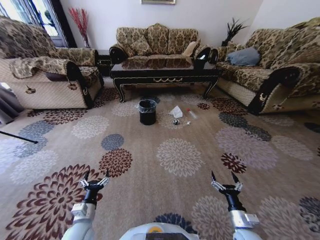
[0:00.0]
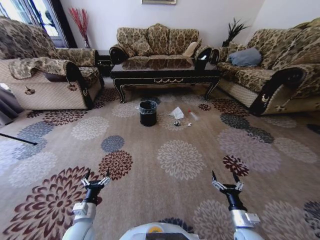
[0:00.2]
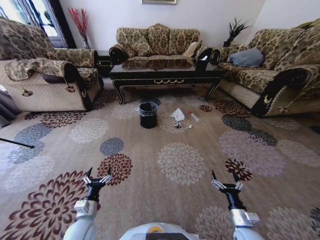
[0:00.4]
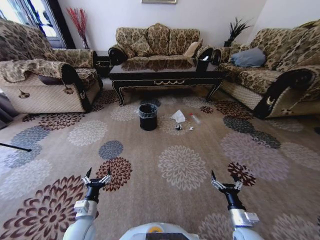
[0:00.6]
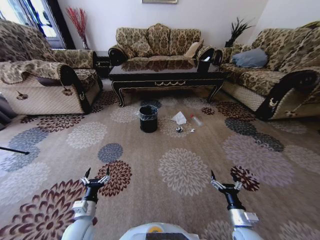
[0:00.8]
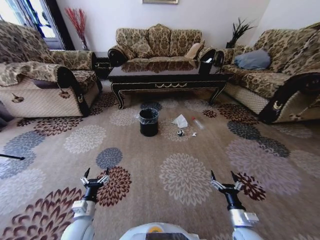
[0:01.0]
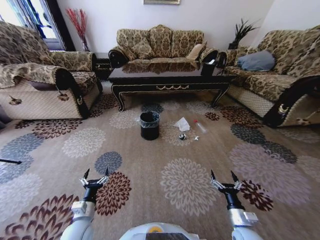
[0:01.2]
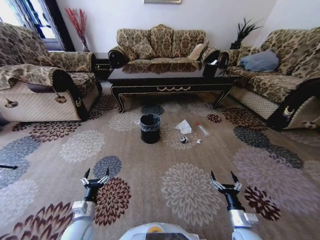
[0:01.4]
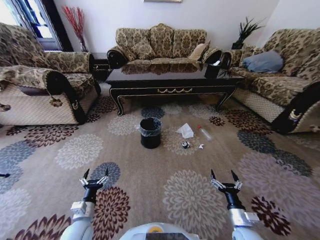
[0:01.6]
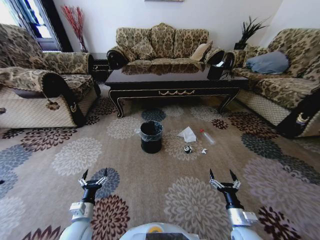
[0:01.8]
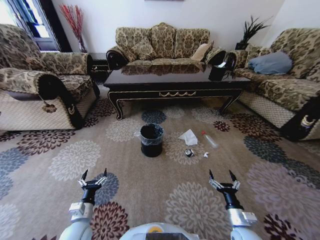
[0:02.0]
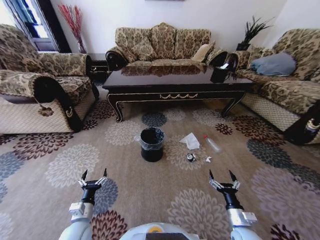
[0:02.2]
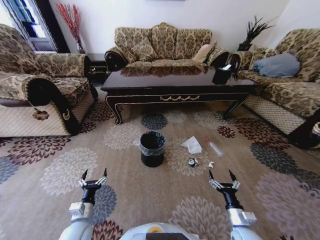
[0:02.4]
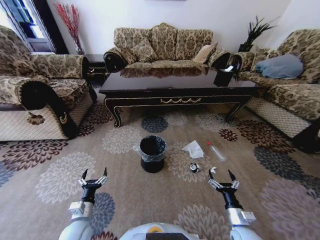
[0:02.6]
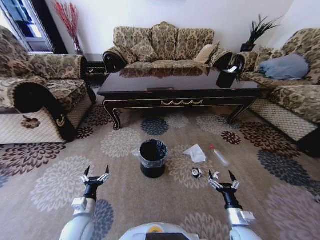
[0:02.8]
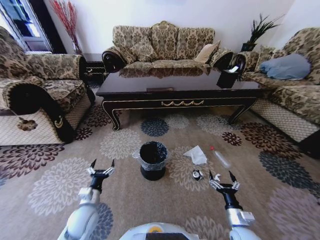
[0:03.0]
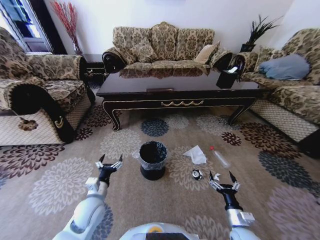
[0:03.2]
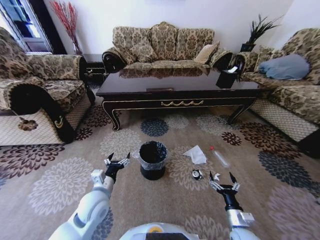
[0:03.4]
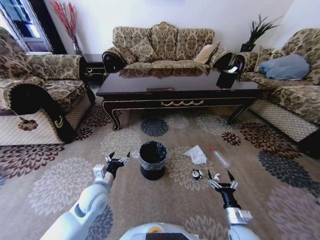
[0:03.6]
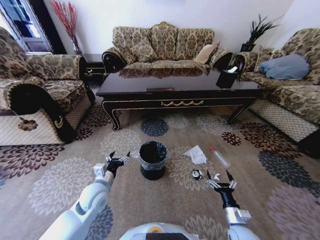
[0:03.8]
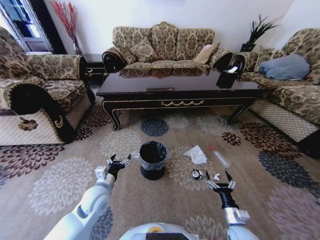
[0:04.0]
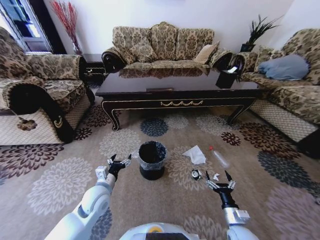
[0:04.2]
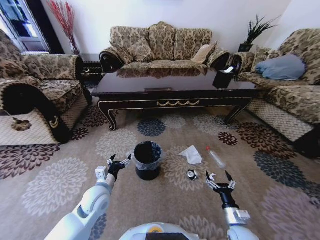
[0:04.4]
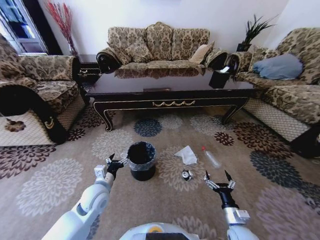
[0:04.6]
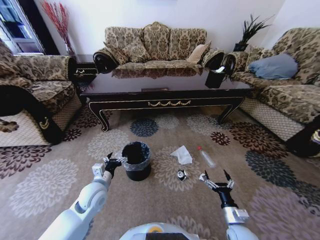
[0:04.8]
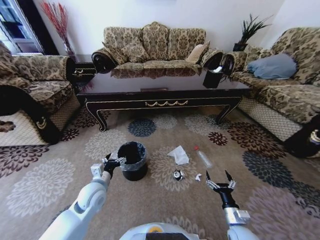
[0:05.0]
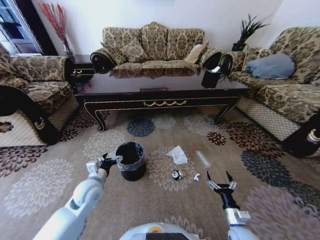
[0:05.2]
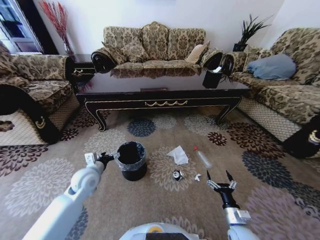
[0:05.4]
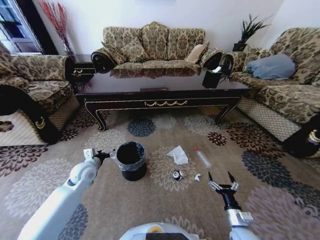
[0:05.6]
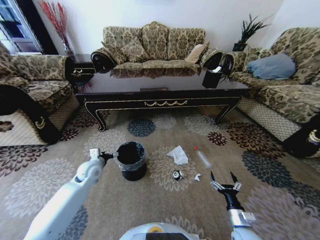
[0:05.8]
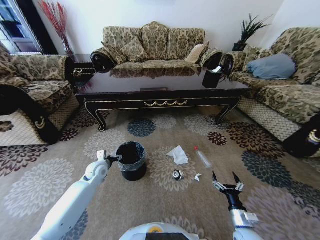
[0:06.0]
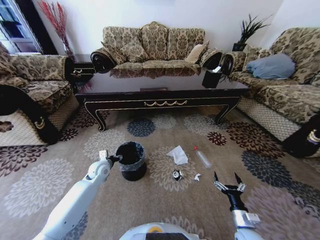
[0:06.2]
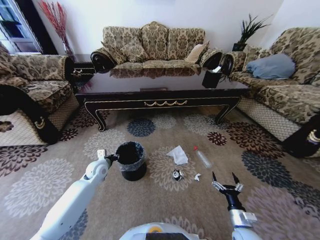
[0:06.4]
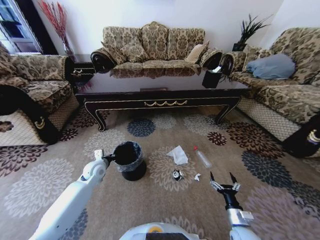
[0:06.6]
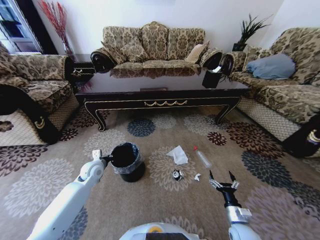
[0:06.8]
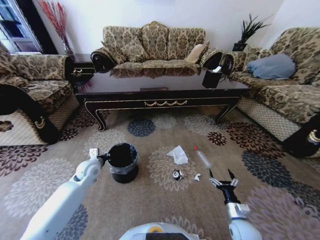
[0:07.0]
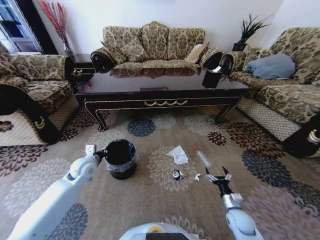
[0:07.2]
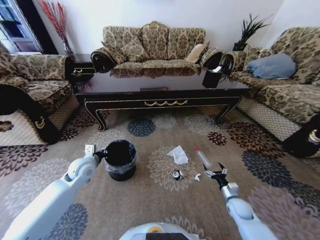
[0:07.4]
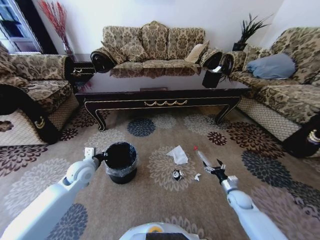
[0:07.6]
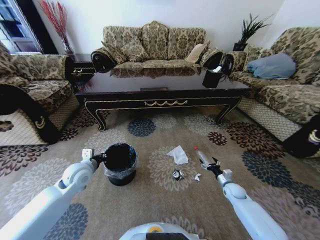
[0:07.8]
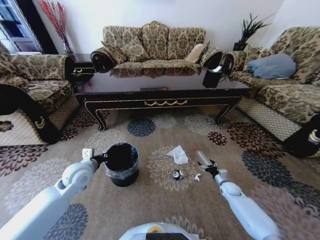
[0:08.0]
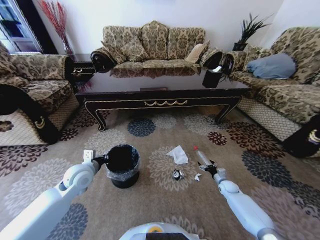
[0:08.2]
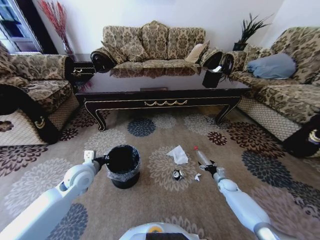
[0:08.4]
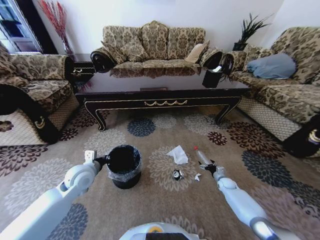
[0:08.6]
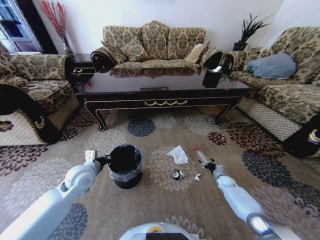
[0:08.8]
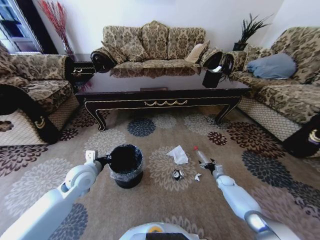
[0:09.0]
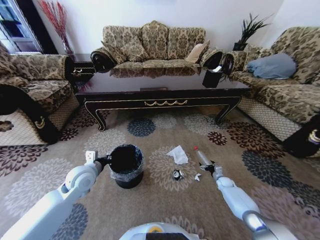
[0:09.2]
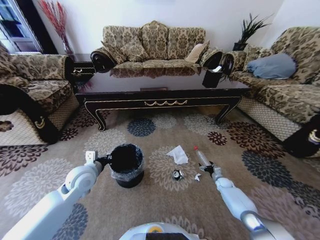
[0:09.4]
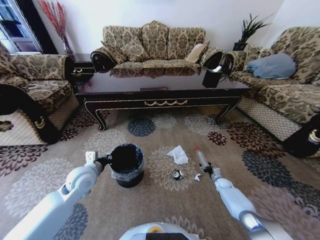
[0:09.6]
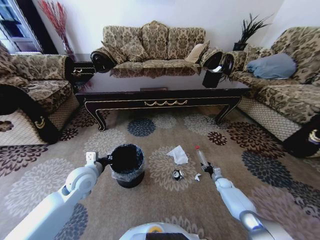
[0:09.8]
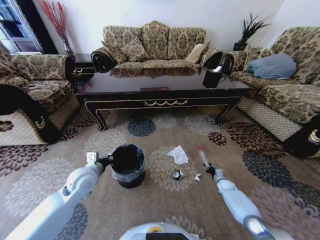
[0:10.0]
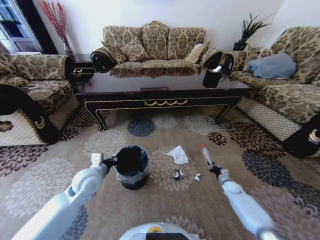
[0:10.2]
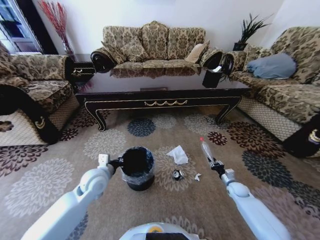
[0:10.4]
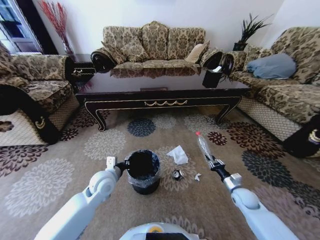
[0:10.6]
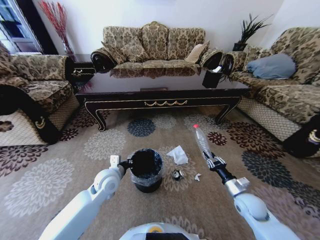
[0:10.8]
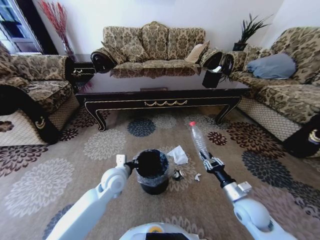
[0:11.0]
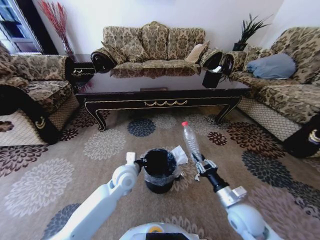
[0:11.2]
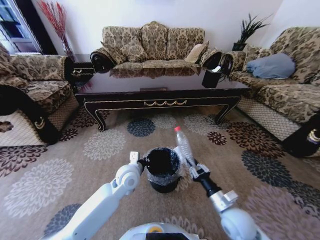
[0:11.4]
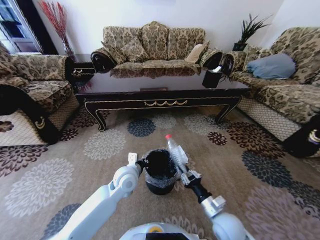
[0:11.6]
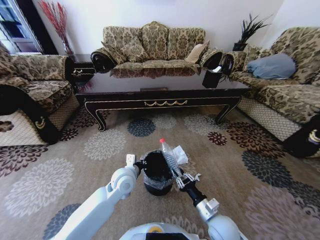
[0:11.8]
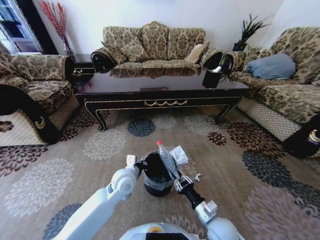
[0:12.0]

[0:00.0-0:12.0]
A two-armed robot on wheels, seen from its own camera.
Task of the whole recording: Move to the front of the table and pick up the trash from the floor, then place it into the trash bin.
0:03.0 to 0:04.4: The left gripper moves upward, forward and to the right, approximately 10 cm.
0:04.4 to 0:06.0: The left gripper shifts some 15 cm forward and to the left.
0:06.0 to 0:07.6: The right gripper goes some 20 cm forward and to the right, while the left gripper goes roughly 10 cm upward, and closes.
0:07.6 to 0:09.0: The right gripper moves forward and downward, some 15 cm.
0:09.0 to 0:10.4: The left gripper is displaced to the right by roughly 5 cm. The right gripper goes approximately 10 cm backward and upward, and closes up.
0:10.4 to 0:12.0: The right gripper is displaced to the left, backward and upward by about 30 cm. The left gripper moves to the right, roughly 10 cm.

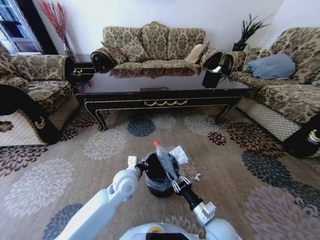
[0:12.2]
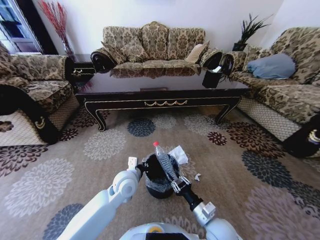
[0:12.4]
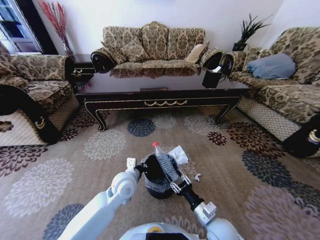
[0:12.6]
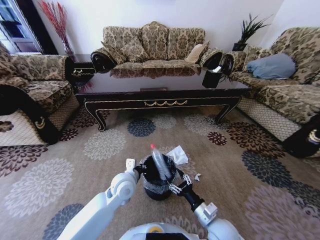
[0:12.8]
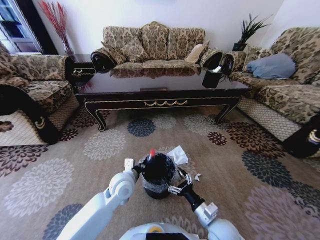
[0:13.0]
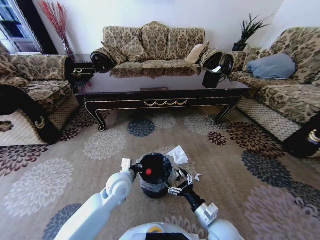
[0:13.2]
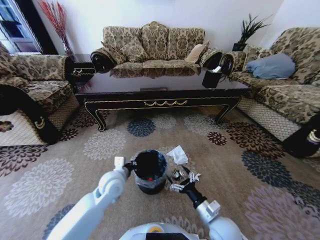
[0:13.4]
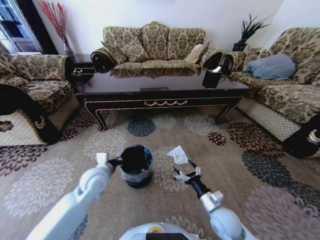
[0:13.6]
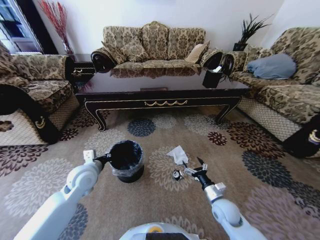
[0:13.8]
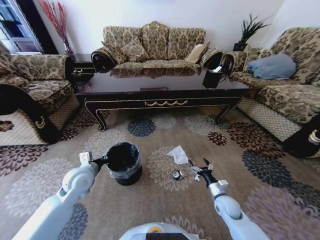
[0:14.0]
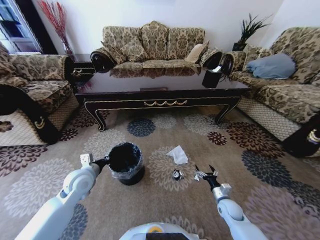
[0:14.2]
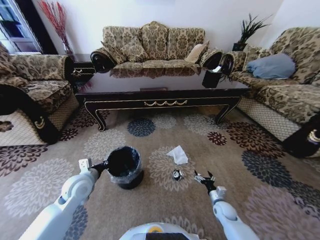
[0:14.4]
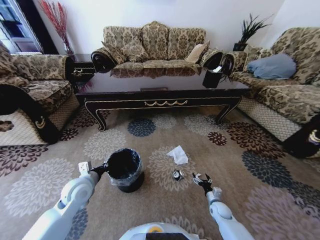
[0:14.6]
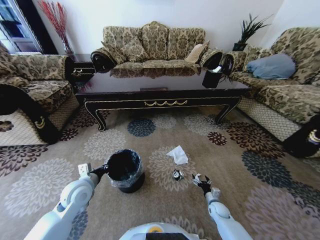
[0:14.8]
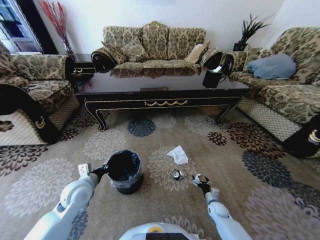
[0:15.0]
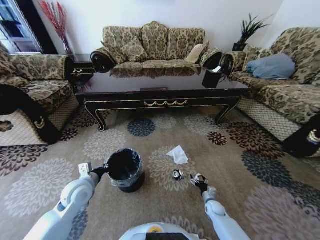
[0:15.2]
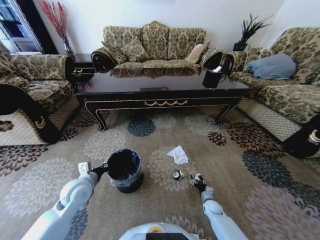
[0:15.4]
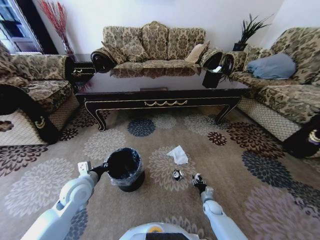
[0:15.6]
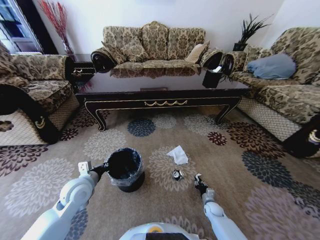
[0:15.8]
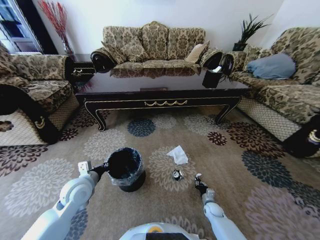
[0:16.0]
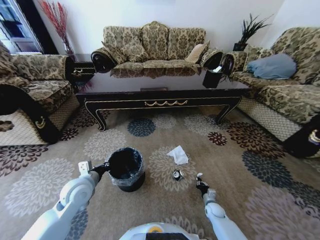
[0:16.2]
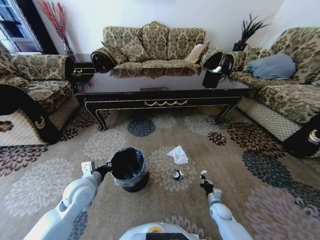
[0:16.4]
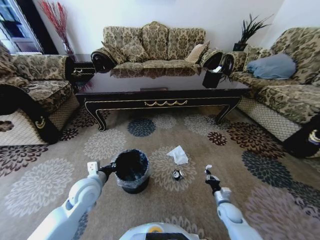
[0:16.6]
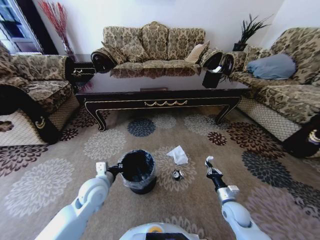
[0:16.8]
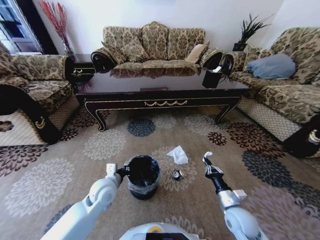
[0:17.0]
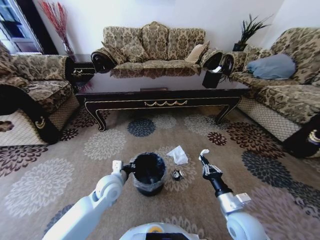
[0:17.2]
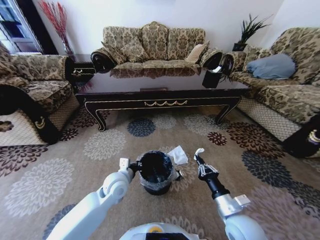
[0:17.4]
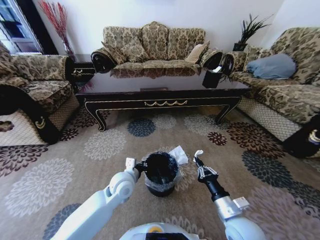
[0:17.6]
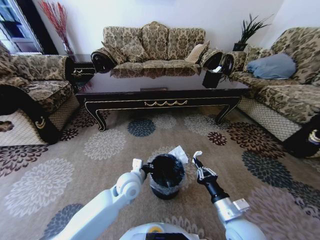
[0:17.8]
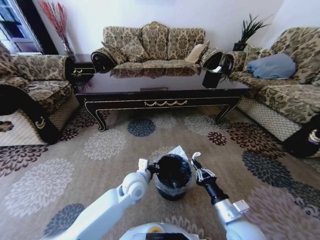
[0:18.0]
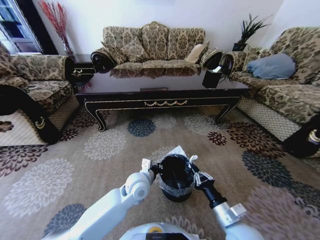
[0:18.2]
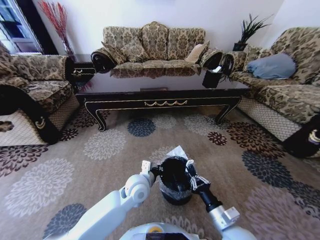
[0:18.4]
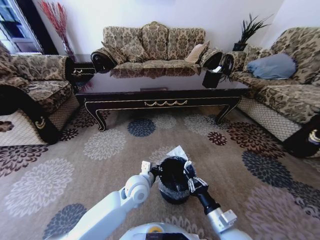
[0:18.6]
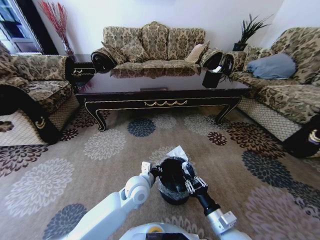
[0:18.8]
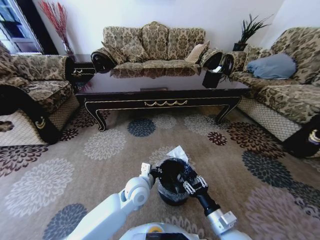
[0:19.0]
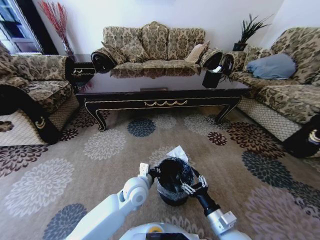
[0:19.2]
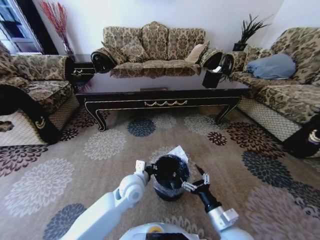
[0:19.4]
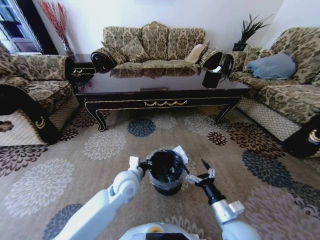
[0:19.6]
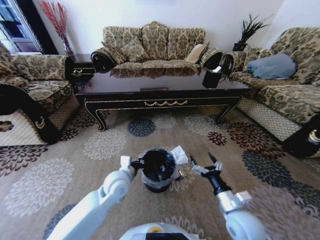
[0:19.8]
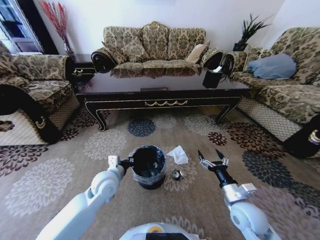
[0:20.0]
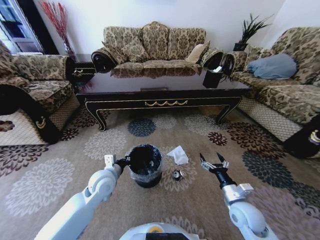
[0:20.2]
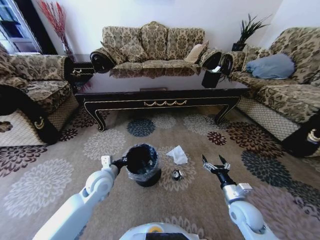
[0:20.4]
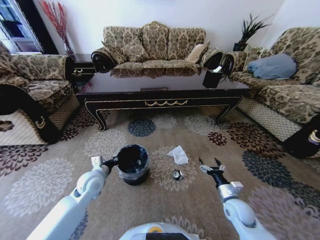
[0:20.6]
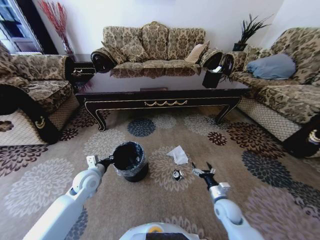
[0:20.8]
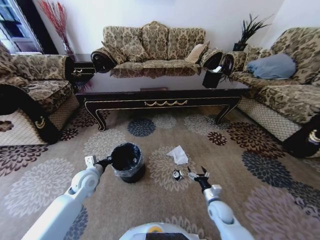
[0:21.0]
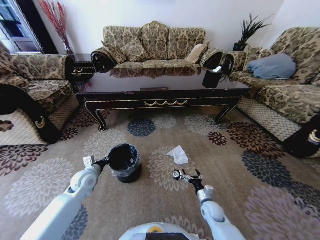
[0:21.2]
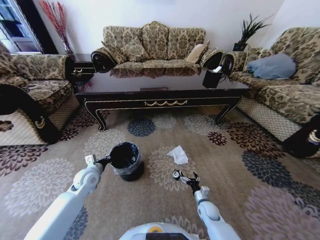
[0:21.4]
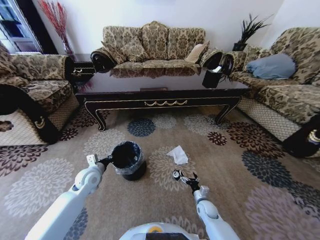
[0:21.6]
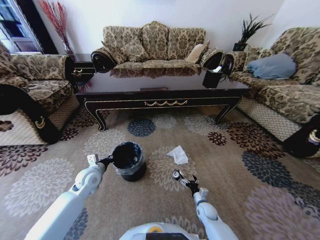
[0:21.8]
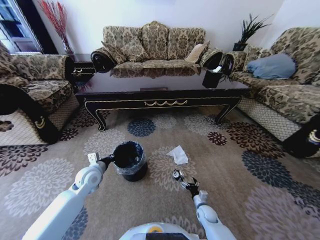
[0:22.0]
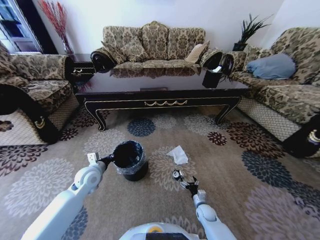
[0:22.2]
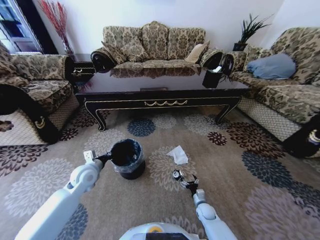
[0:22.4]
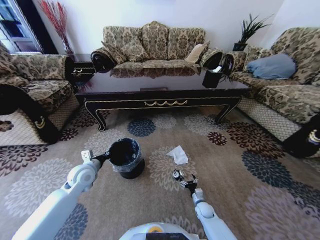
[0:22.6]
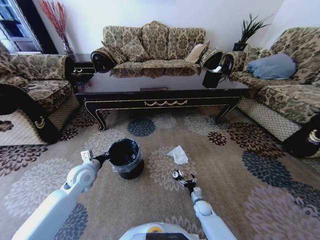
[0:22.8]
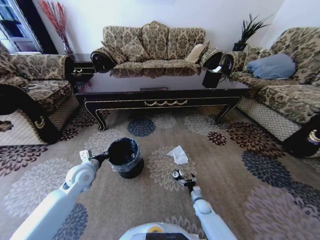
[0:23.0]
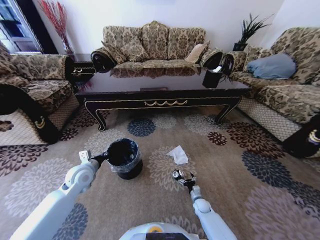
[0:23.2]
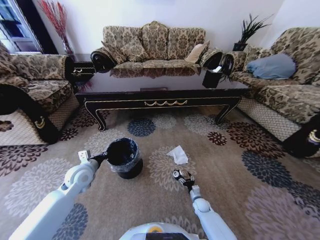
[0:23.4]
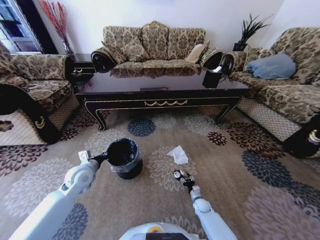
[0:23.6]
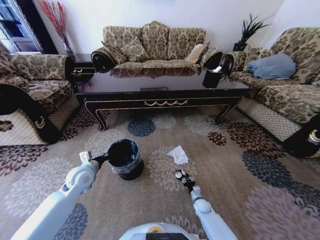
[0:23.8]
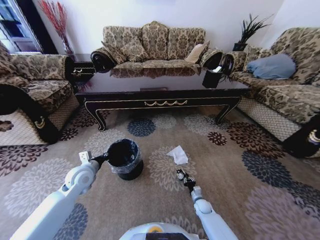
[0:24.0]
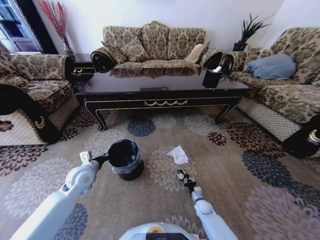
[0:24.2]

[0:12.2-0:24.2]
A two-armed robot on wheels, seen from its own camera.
Task of the whole recording: Move to the front of the table and pick up the trash from the floor, then place it into the trash bin.
0:12.2 to 0:13.8: The left gripper moves to the left, about 15 cm, while the right gripper travels forward and to the right by some 10 cm, and opens.
0:13.8 to 0:15.2: The left gripper ends up some 5 cm from where it was, while the right gripper goes about 20 cm downward.
0:15.2 to 0:16.6: The right gripper goes some 5 cm upward, and closes.
0:16.6 to 0:18.2: The right gripper is displaced upward, to the left and backward by roughly 25 cm, while the left gripper shifts some 20 cm to the right.
0:18.2 to 0:19.8: The left gripper shifts some 10 cm to the left. The right gripper opens up.
0:19.8 to 0:21.2: The left gripper goes about 15 cm to the left; the right gripper is displaced downward by roughly 20 cm.
0:21.2 to 0:22.6: The right gripper is displaced downward by some 10 cm.
0:22.6 to 0:24.2: The right gripper closes.
